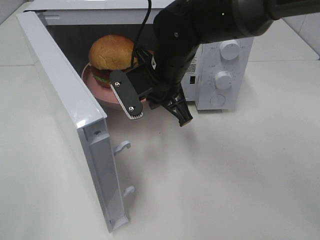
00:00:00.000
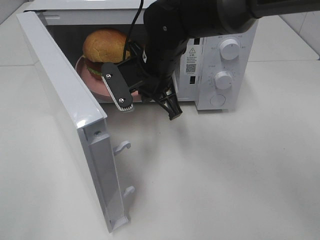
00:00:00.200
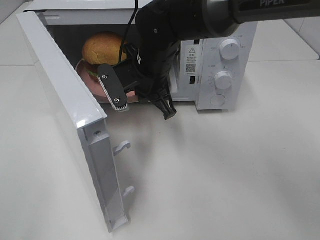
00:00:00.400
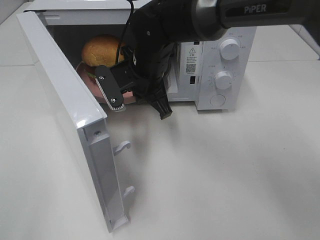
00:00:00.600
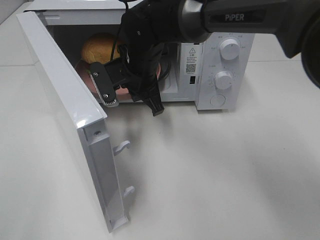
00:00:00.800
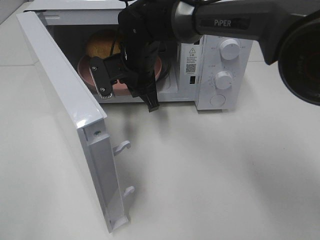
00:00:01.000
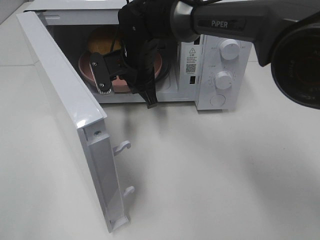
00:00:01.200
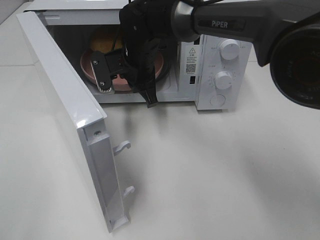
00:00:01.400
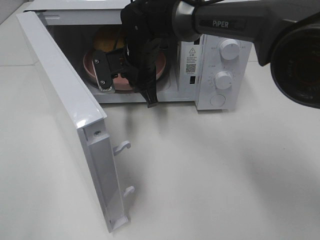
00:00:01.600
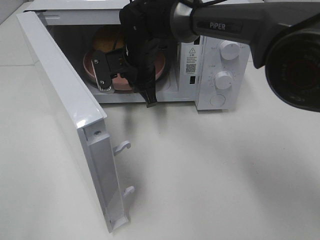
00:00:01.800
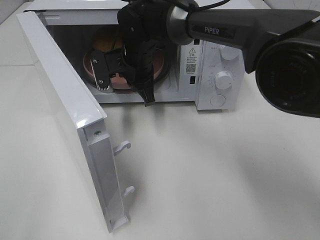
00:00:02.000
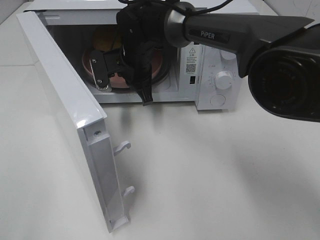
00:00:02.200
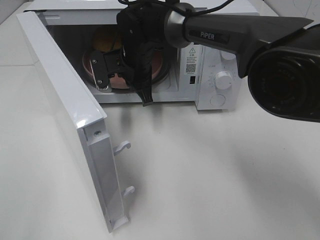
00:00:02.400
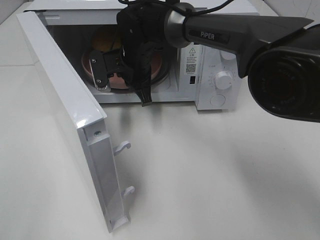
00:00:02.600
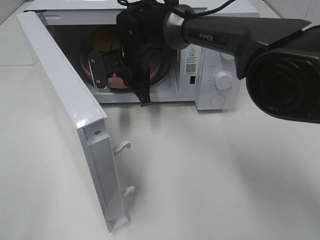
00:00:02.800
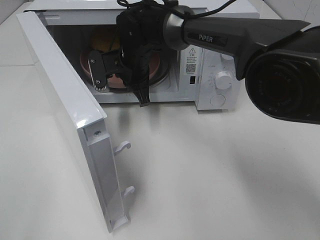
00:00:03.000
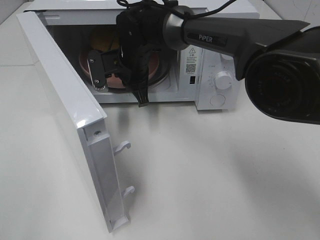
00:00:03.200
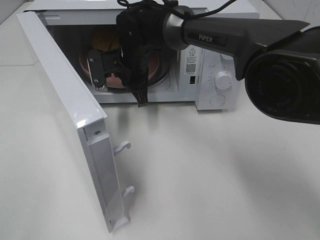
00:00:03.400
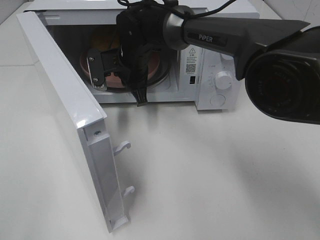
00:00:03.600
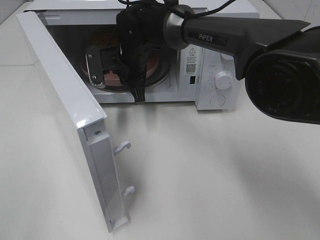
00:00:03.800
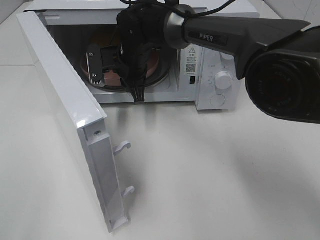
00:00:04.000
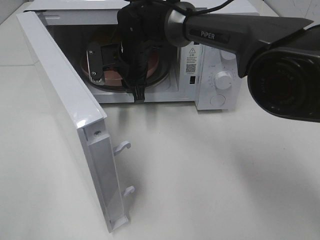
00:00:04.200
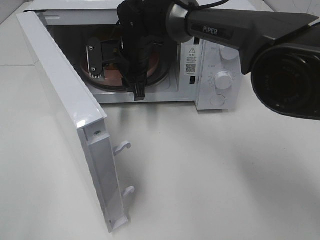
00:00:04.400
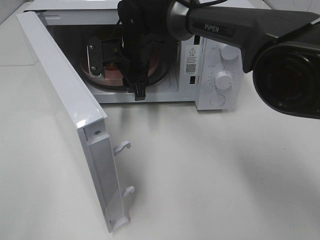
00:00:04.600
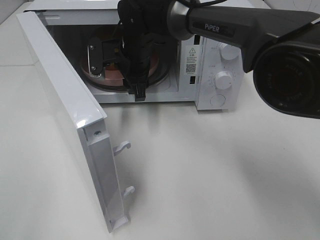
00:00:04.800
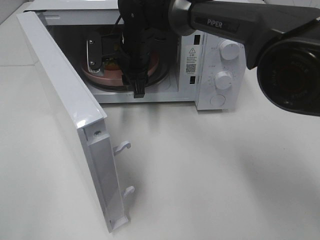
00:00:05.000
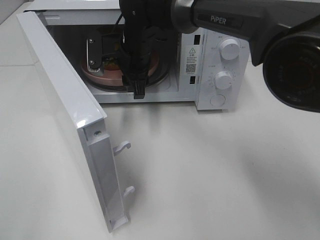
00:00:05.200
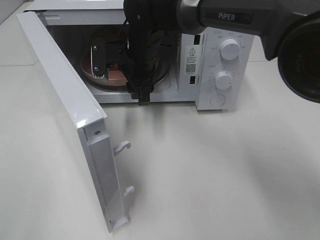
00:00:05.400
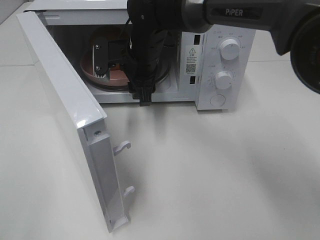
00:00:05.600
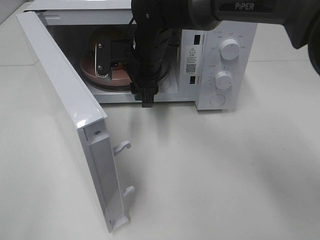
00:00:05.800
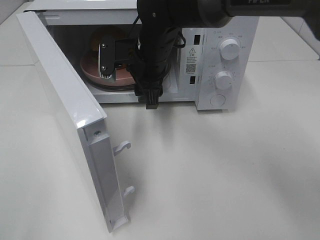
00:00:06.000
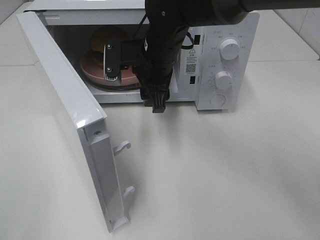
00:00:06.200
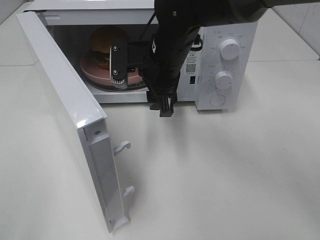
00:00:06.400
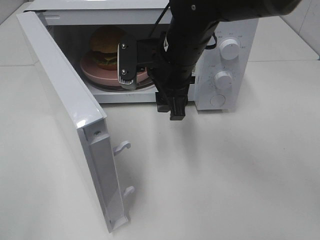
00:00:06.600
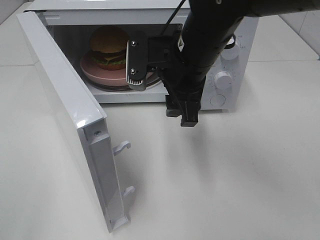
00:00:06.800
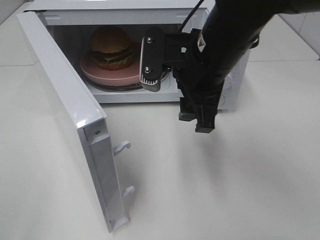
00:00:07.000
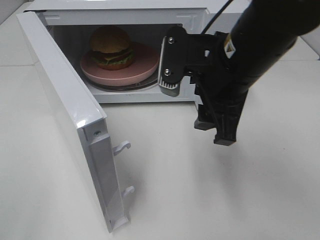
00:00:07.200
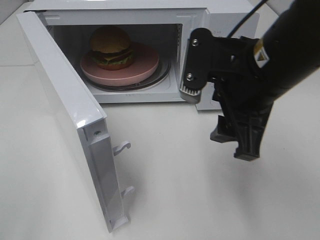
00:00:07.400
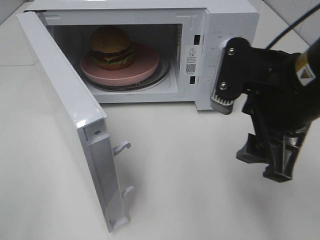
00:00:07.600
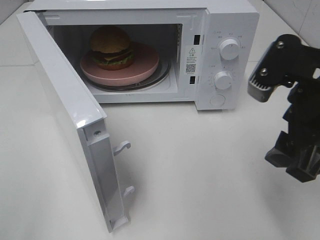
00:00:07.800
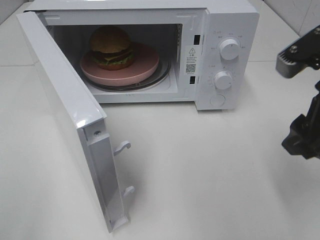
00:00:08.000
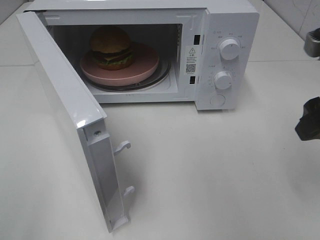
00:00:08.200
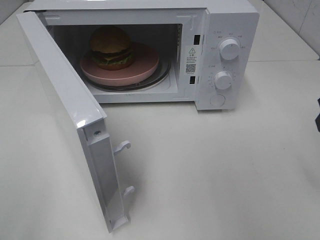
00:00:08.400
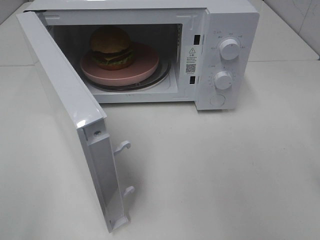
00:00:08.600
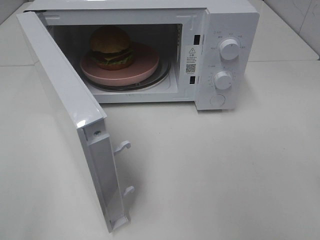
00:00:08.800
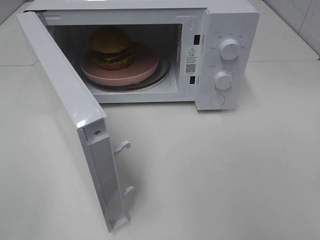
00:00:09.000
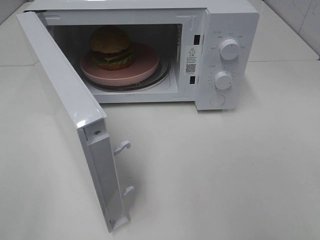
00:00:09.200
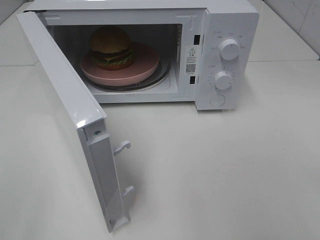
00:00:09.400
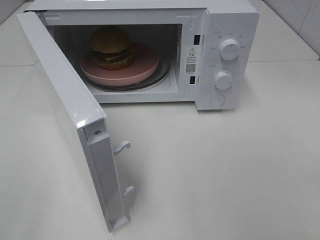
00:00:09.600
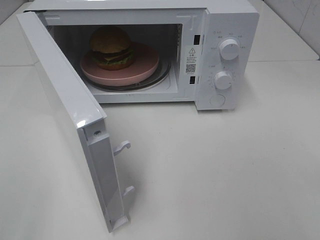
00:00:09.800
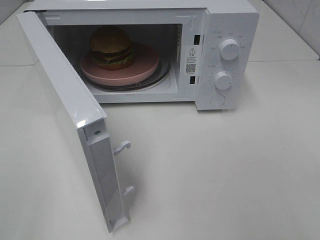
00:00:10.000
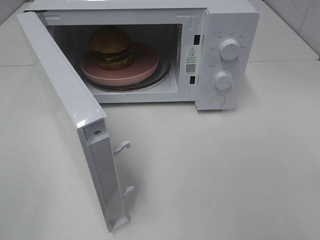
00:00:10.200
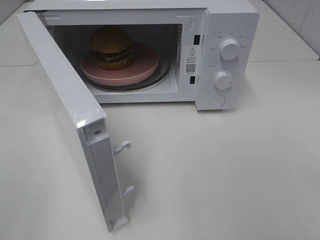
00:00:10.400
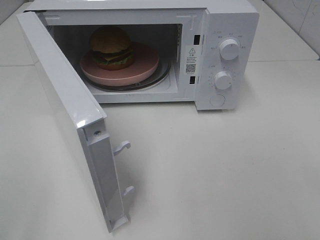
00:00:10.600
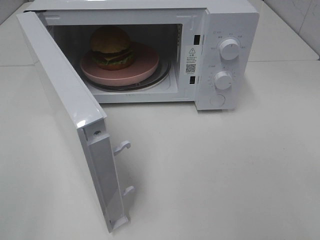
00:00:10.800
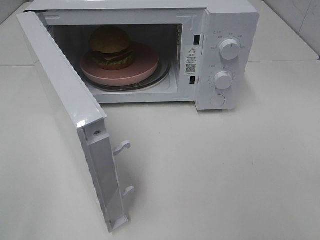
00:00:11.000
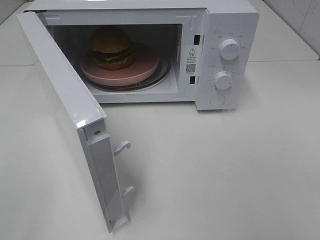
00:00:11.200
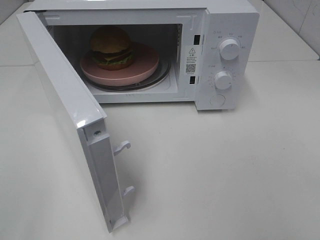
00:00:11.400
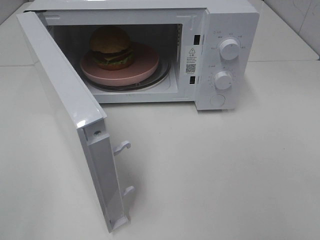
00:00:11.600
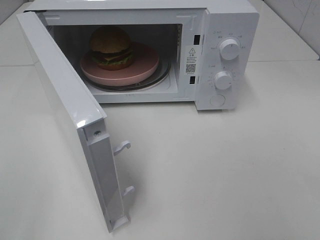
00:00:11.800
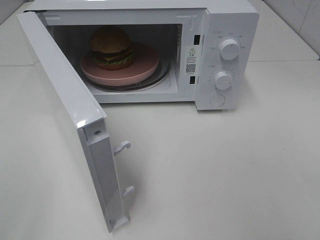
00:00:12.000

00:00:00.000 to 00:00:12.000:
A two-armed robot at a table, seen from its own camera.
Task of the whole recording: Heat the burger.
Step, 00:00:00.000 to 00:00:05.200: Right hand: place the plate in the microwave.
00:00:00.000 to 00:00:01.600: The right gripper moves forward, some 10 cm.
00:00:01.600 to 00:00:03.000: The grippers move only a little.
00:00:03.000 to 00:00:04.400: The right gripper opens up.
00:00:04.400 to 00:00:06.000: The right gripper shifts by roughly 5 cm.
00:00:06.000 to 00:00:07.600: The right gripper travels backward and to the right by some 25 cm.
00:00:07.600 to 00:00:09.000: The right gripper travels to the right and backward by approximately 15 cm.

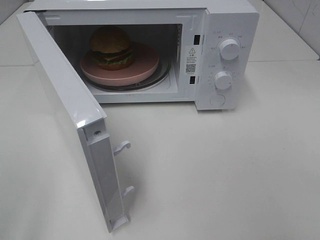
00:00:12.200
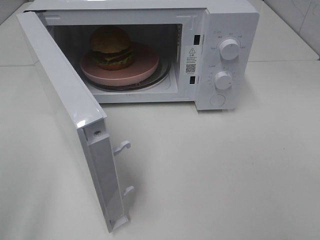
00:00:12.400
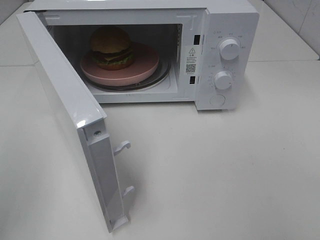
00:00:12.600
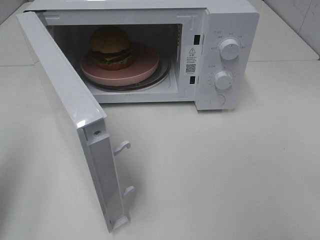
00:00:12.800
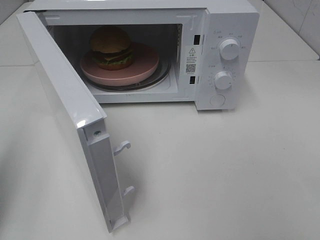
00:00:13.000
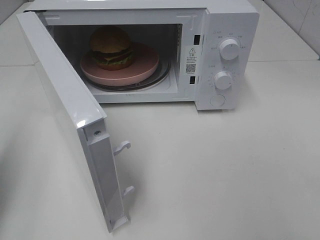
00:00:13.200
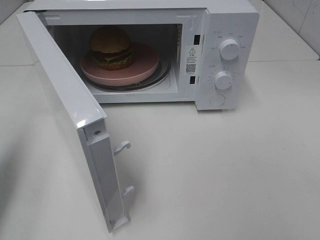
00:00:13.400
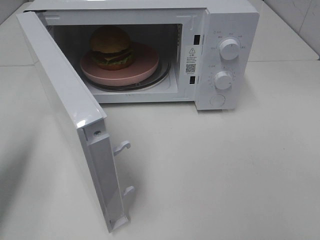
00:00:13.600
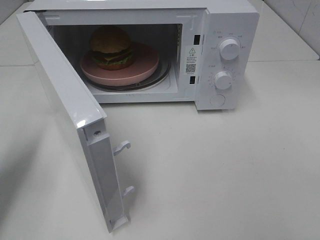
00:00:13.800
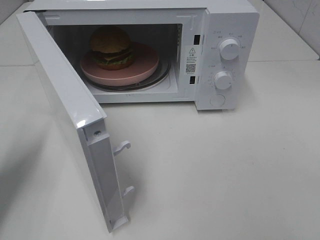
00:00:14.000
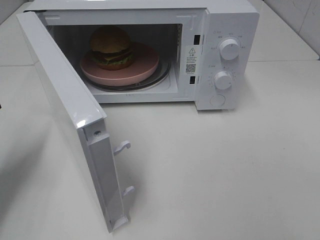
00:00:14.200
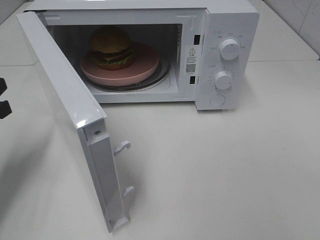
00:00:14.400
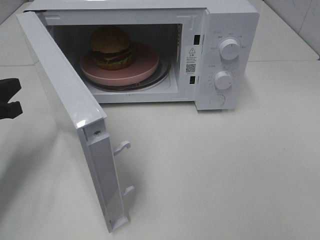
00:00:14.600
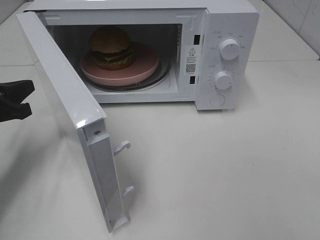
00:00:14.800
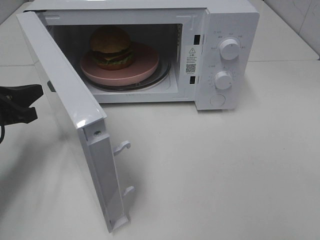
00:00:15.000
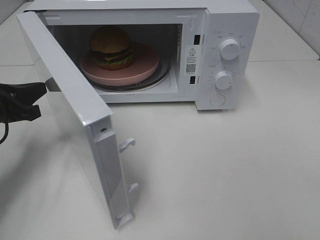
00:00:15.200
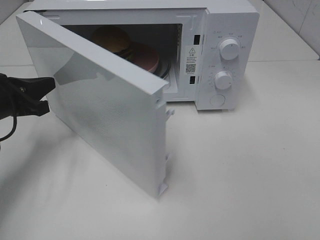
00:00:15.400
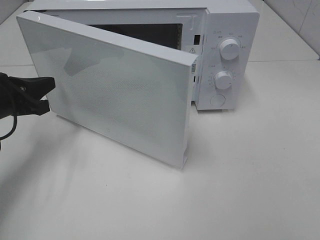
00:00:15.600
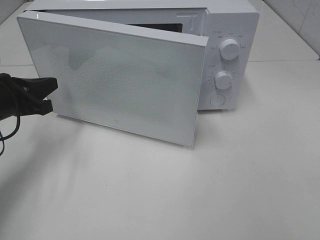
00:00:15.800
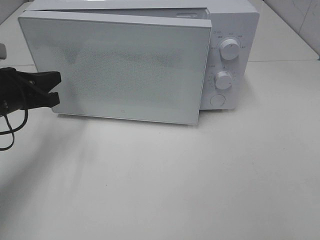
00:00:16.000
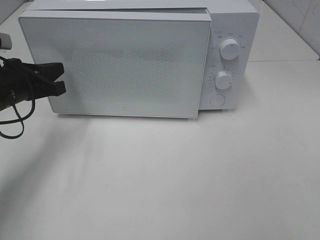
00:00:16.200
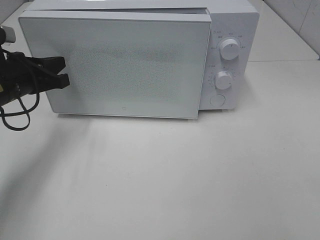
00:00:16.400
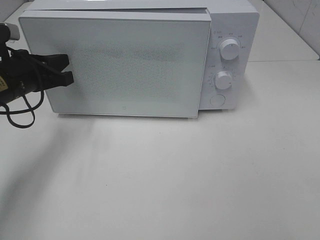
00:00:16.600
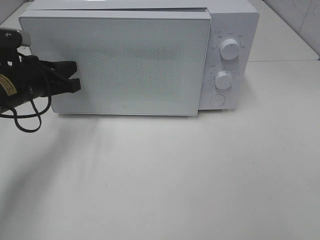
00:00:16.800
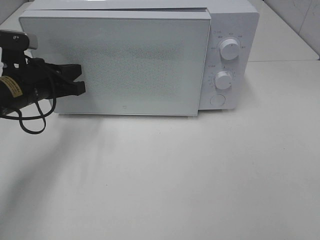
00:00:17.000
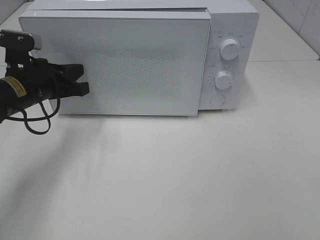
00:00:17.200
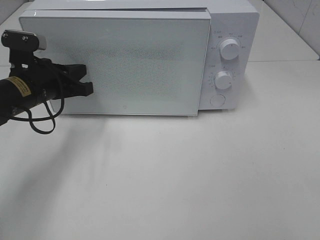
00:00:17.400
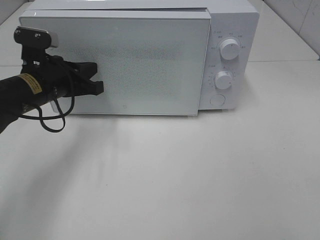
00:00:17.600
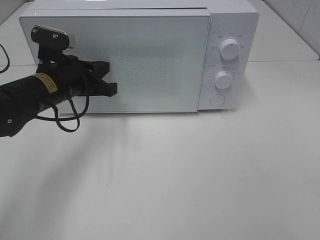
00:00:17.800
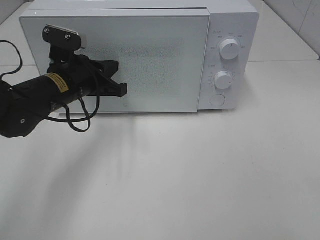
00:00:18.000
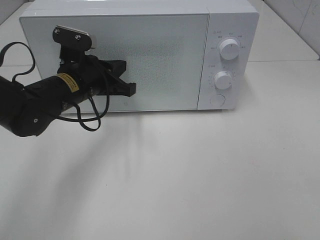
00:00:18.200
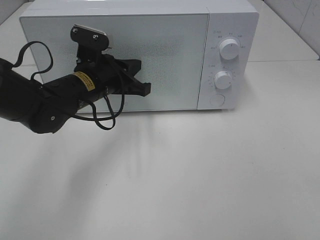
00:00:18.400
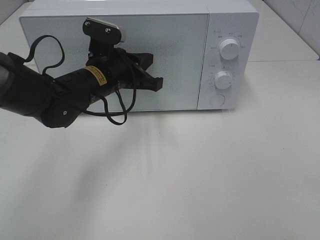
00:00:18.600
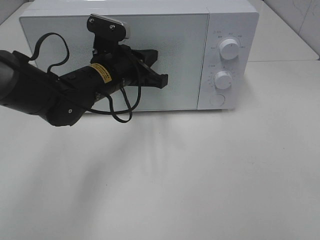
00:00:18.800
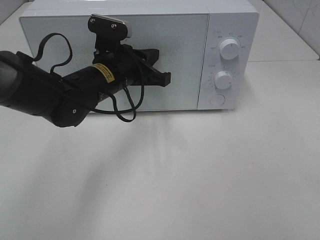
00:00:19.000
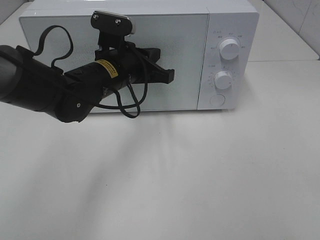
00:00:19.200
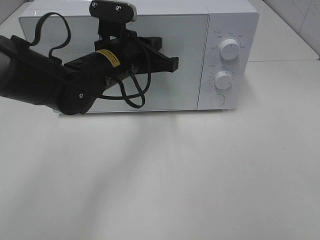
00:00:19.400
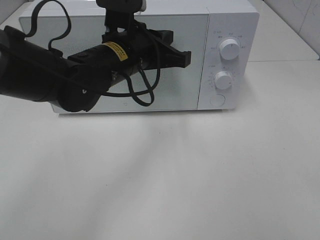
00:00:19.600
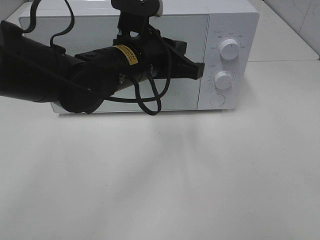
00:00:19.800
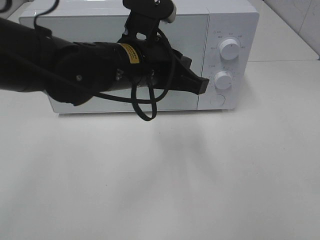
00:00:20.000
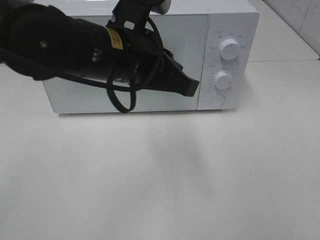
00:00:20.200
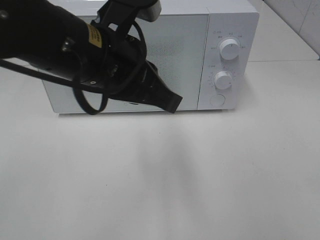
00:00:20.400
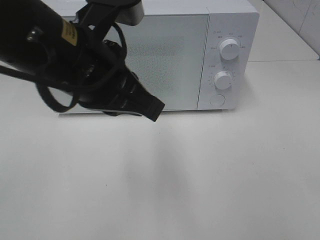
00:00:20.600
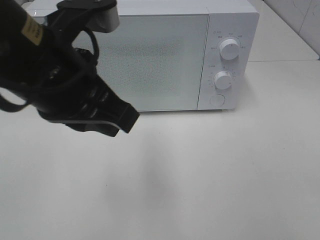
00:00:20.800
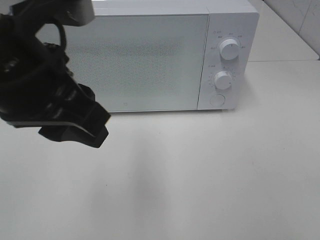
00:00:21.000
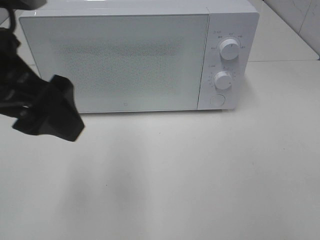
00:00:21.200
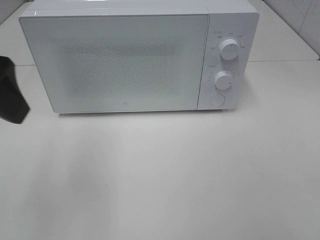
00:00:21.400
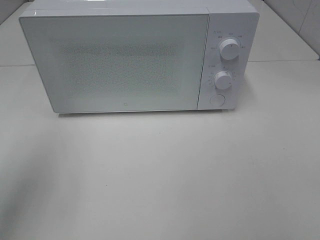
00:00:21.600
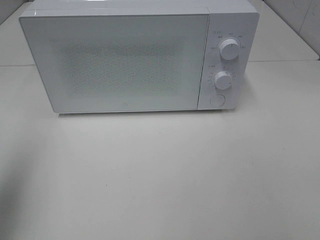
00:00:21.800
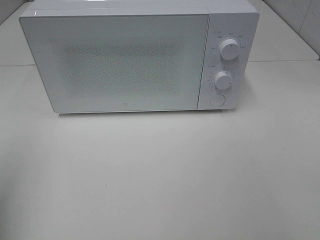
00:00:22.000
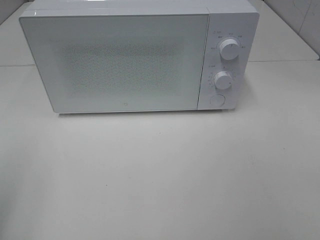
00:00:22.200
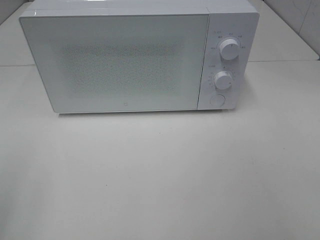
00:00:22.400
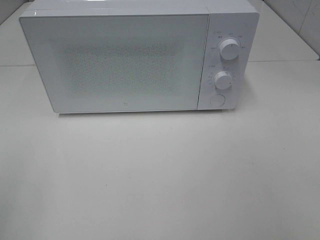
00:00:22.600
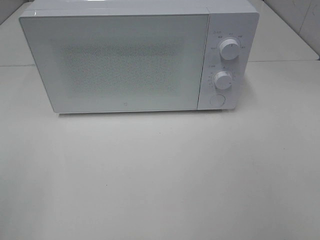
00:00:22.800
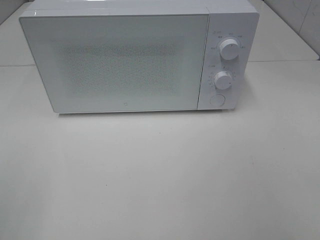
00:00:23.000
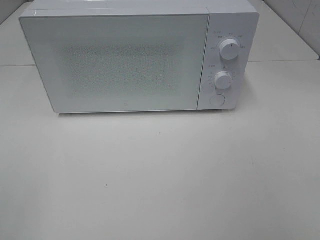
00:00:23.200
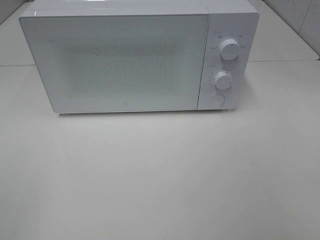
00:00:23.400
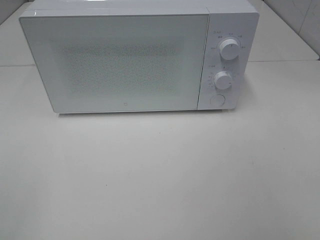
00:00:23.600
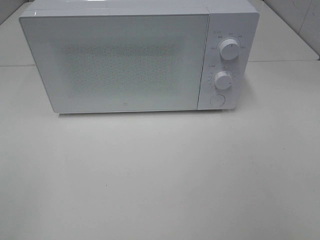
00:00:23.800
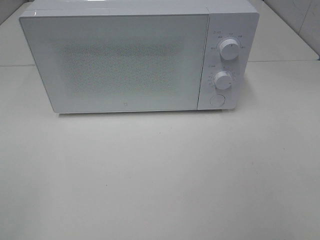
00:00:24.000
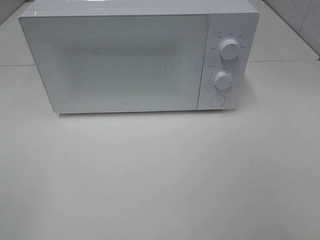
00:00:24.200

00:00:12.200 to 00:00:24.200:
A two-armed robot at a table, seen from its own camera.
Task of the whole recording: Heat the burger.
Step, 00:00:12.200 to 00:00:20.400: Left hand: close the microwave door.
00:00:12.200 to 00:00:13.800: The left gripper is displaced forward and downward by approximately 20 cm, and closes its fingers.
00:00:13.800 to 00:00:15.200: The left gripper goes approximately 10 cm downward and forward.
00:00:15.200 to 00:00:16.600: The left gripper shifts by some 5 cm.
00:00:16.600 to 00:00:18.200: The left gripper moves to the right, roughly 10 cm.
00:00:18.200 to 00:00:19.800: The left gripper goes roughly 10 cm to the right and upward.
00:00:19.800 to 00:00:21.200: The left gripper heads to the left, backward and upward, covering approximately 20 cm, and opens its fingers.
00:00:21.200 to 00:00:22.600: The left gripper heads to the left and backward, covering approximately 20 cm.
